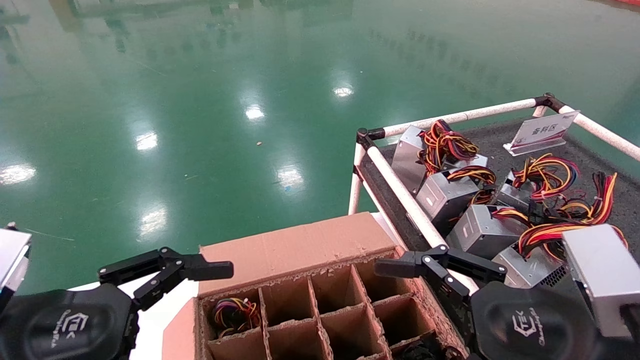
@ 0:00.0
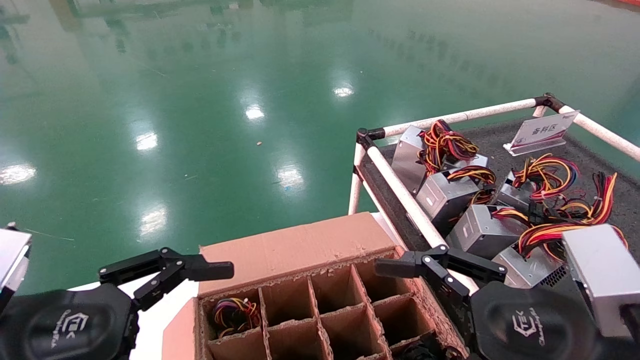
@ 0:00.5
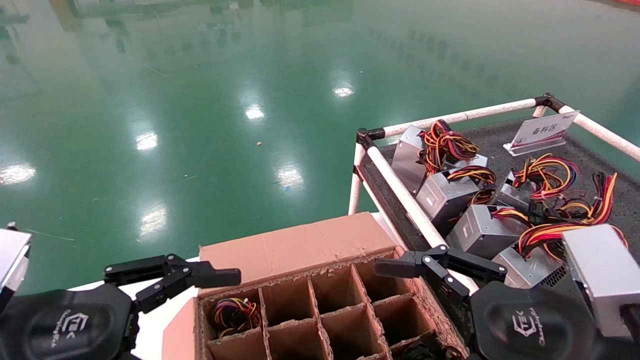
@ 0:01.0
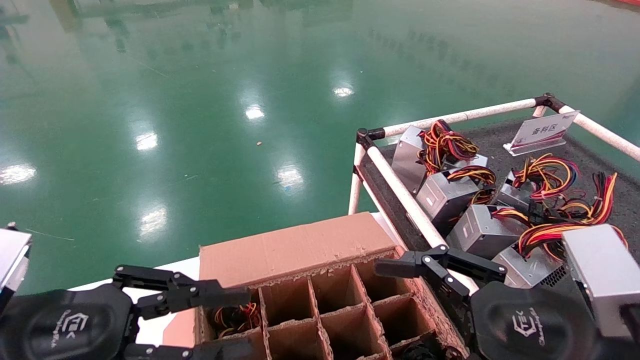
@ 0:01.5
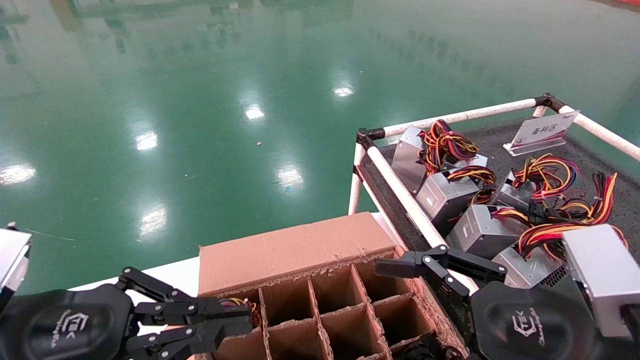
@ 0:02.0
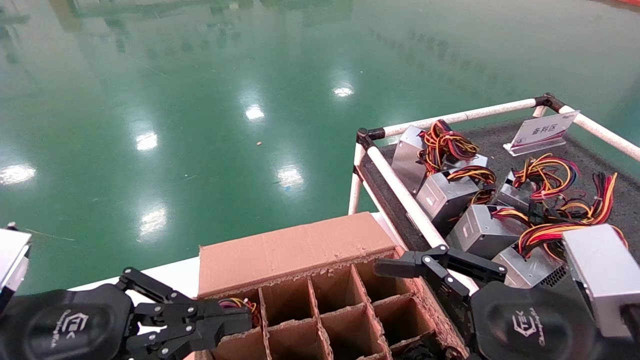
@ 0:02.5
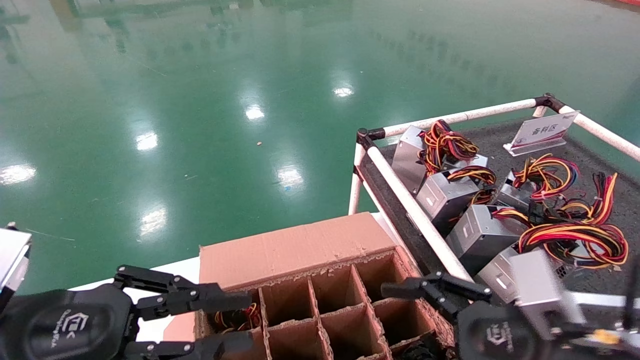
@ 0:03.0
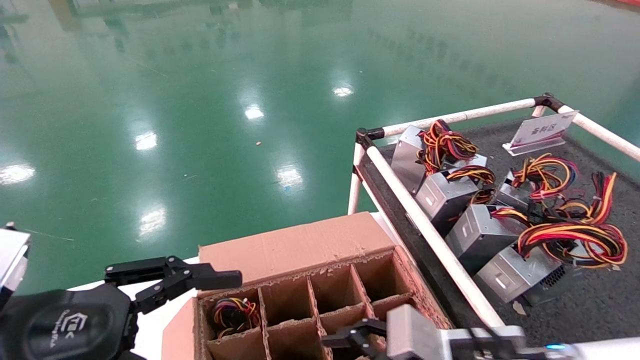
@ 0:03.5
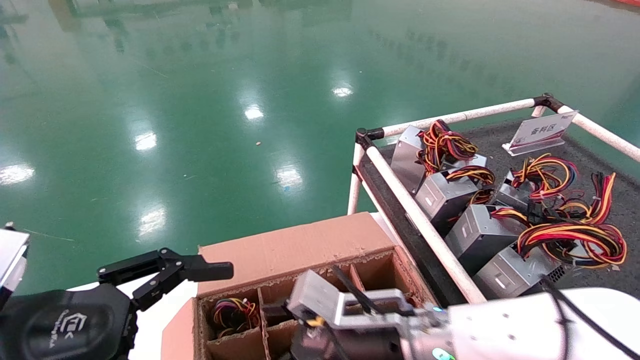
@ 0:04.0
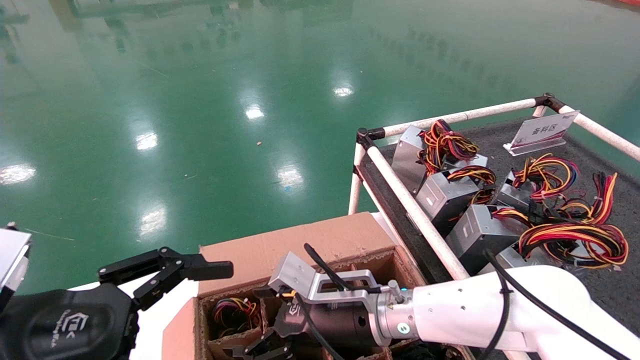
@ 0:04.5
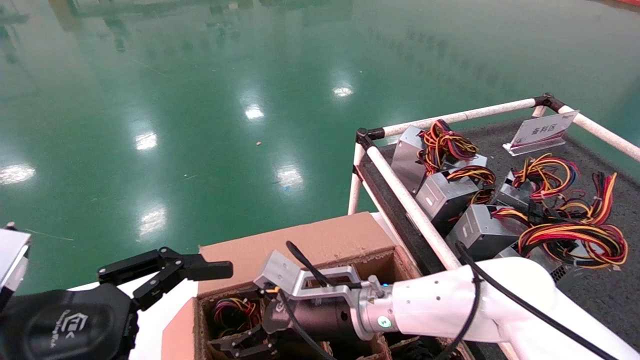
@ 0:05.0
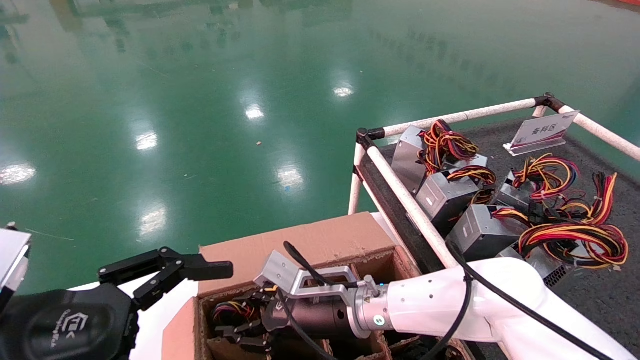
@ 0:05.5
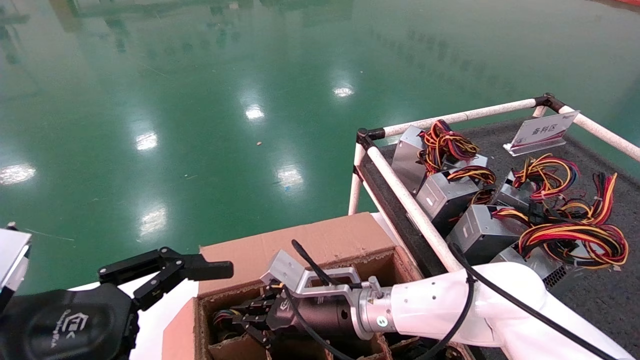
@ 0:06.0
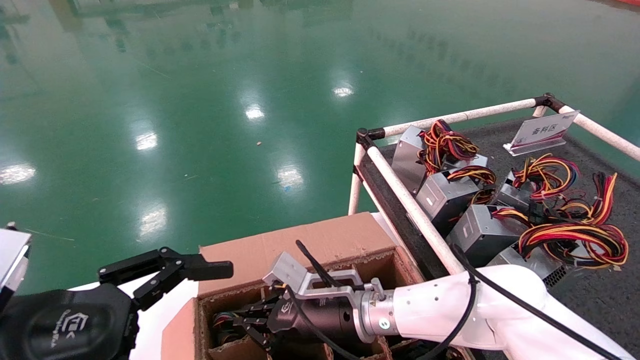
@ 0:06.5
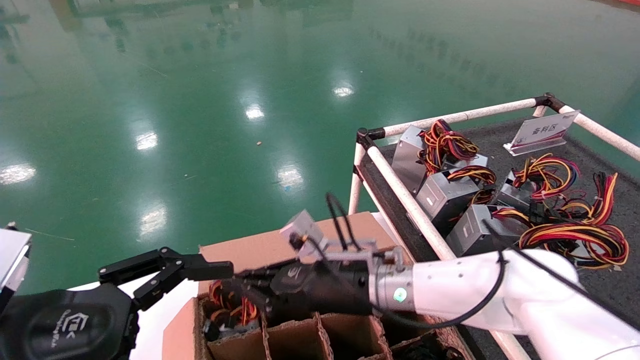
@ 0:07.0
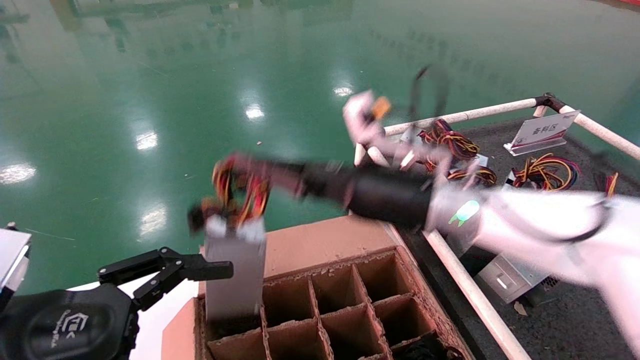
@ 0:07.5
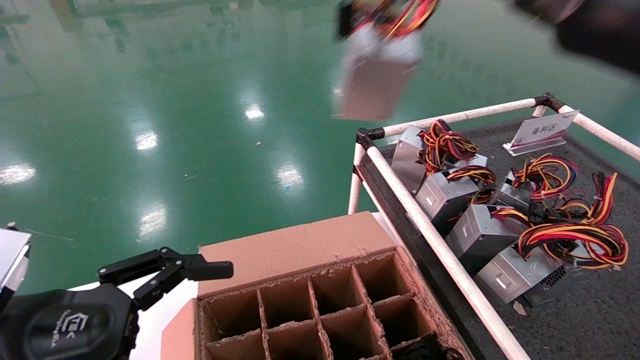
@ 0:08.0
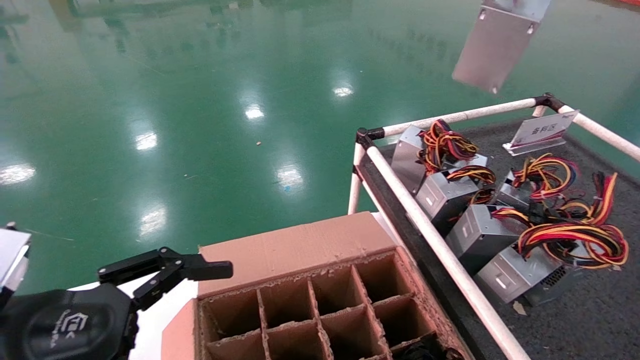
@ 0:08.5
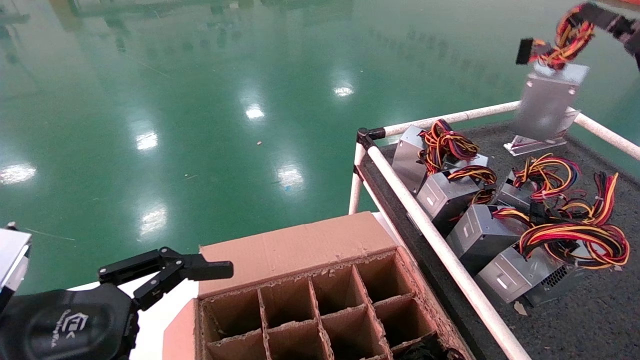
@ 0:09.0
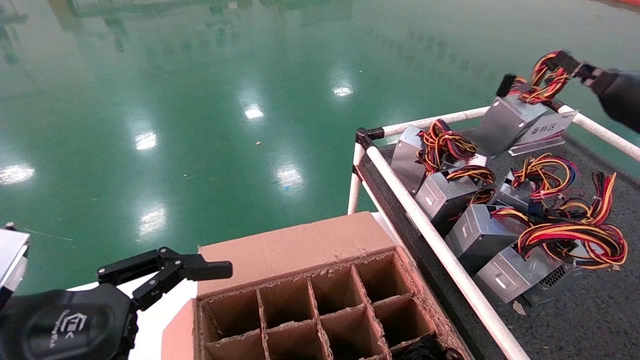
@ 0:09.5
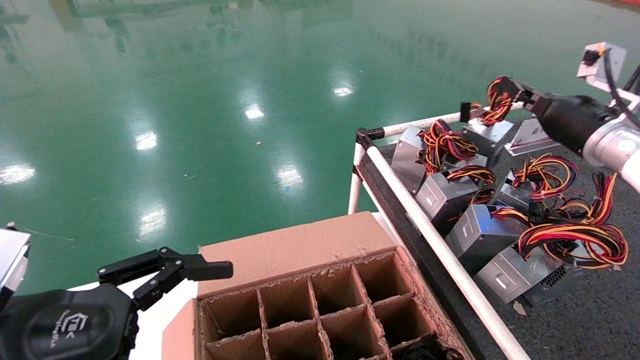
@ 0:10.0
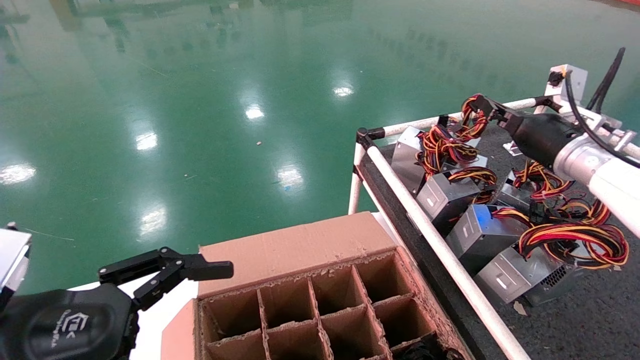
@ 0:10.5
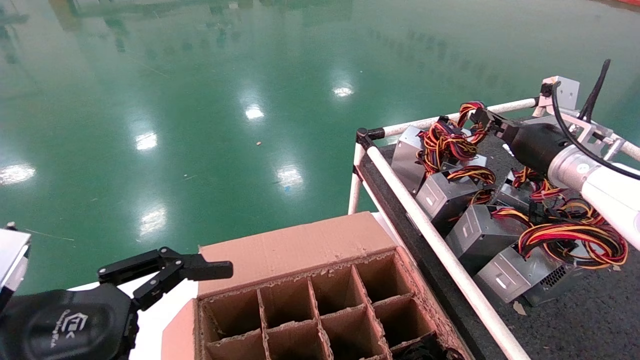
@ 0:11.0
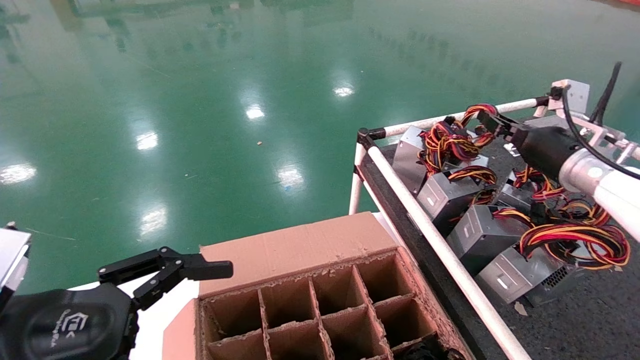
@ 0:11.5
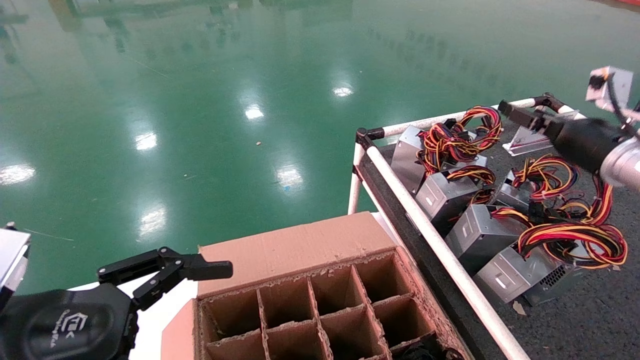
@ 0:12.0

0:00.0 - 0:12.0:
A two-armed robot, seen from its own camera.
Step, 0:03.5 - 0:06.0: Grab and lift the power supply from the large box.
Step, 0:06.5 - 0:11.5: Place the power supply on the operating table.
0:00.0 - 0:02.0: The left gripper closes.
0:02.0 - 0:04.0: The left gripper opens up. Meanwhile the right gripper travels to the left, forward and downward by roughly 25 cm.
0:04.0 - 0:06.0: The right gripper moves forward and to the left, some 10 cm, and closes its fingers.
0:06.0 - 0:08.0: The right gripper shifts approximately 40 cm upward and to the right.
0:08.0 - 0:10.0: The right gripper moves forward, to the right and downward, some 20 cm.
0:10.0 - 0:12.0: The right gripper opens its fingers.

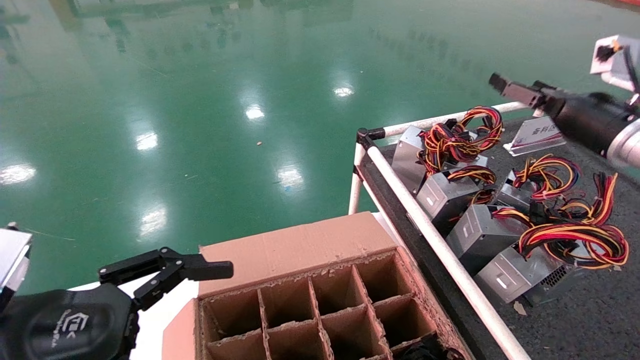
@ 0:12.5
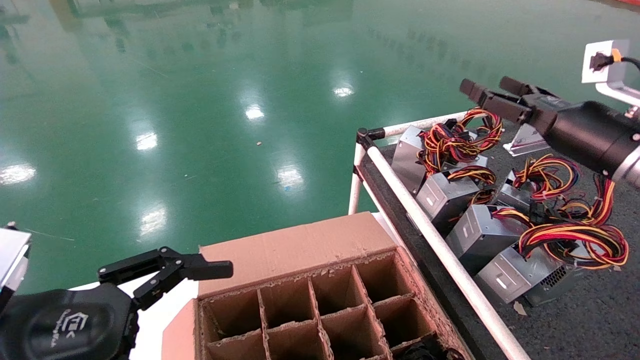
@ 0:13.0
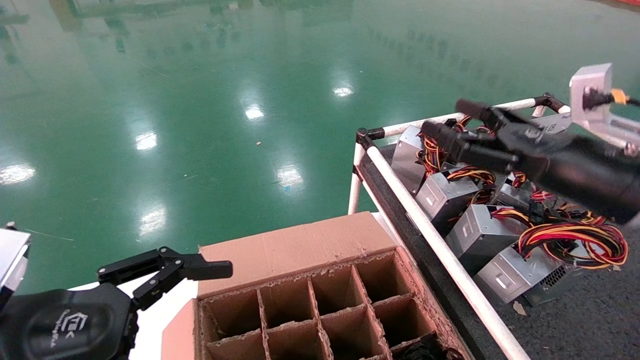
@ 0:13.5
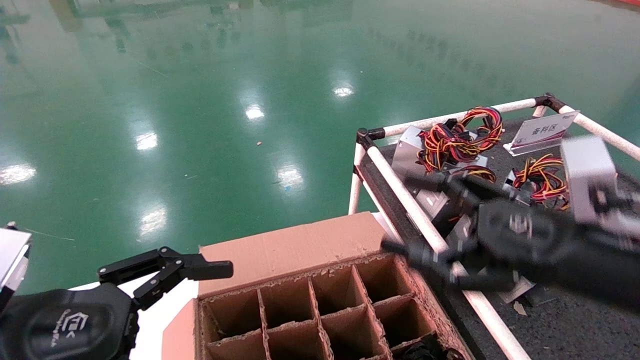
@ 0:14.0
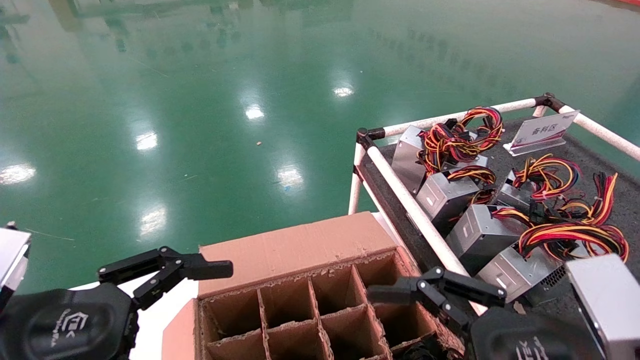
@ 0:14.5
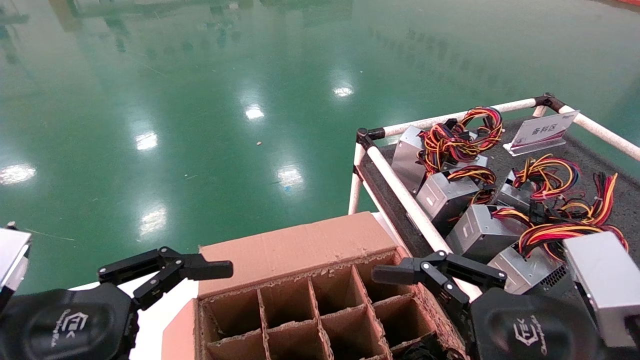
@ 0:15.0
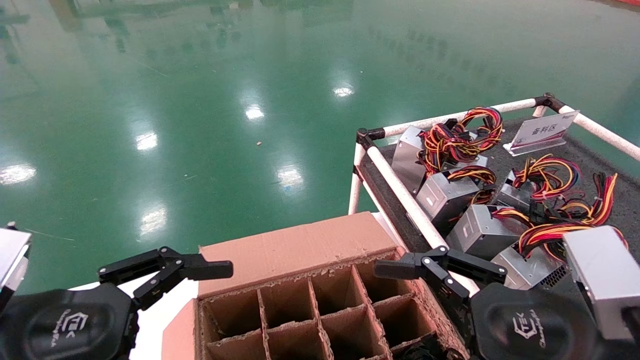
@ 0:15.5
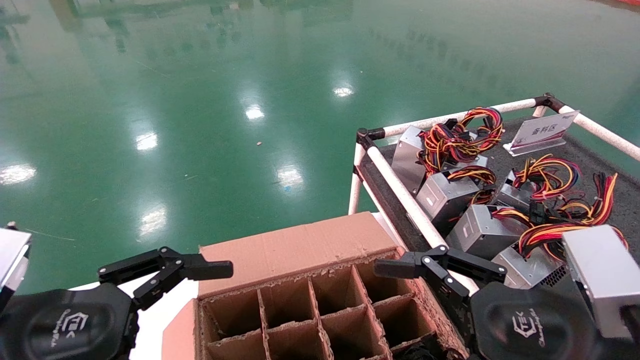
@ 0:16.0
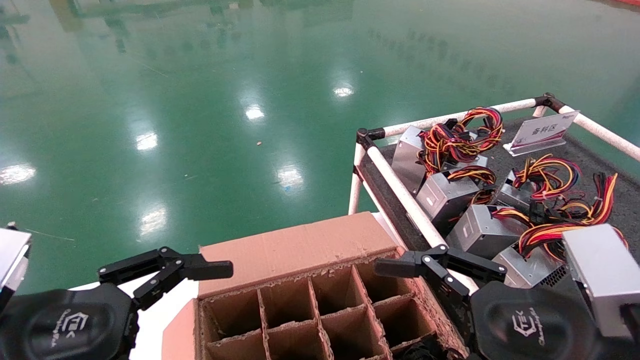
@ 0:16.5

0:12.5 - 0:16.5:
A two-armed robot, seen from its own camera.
0:12.5 - 0:14.5: The right gripper is displaced backward, to the left and downward by some 30 cm.
0:14.5 - 0:16.5: Both grippers stay about where they are.
